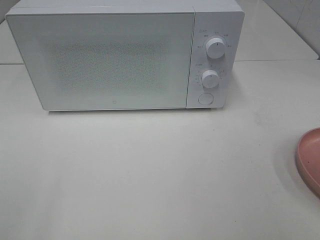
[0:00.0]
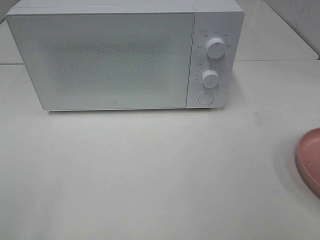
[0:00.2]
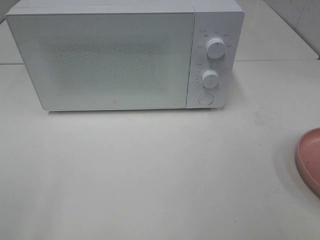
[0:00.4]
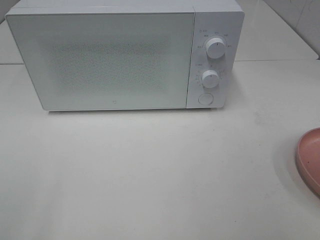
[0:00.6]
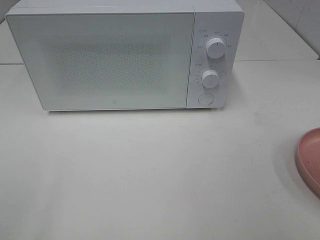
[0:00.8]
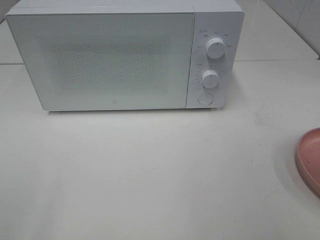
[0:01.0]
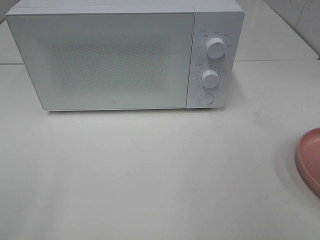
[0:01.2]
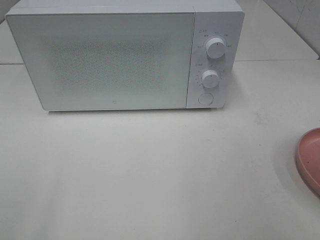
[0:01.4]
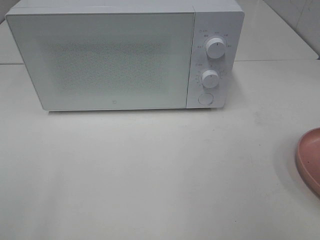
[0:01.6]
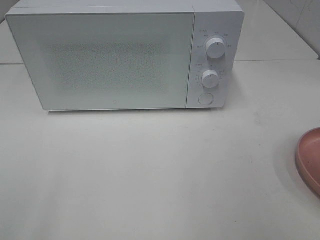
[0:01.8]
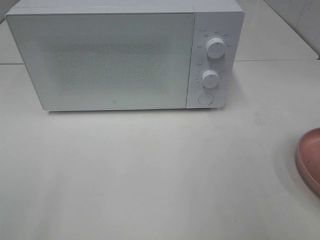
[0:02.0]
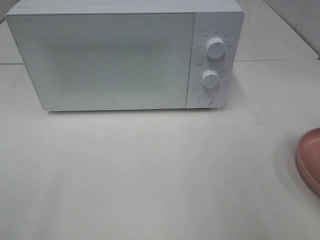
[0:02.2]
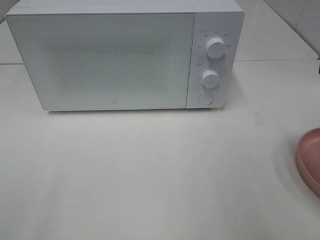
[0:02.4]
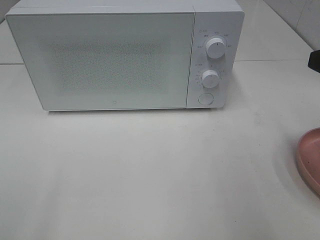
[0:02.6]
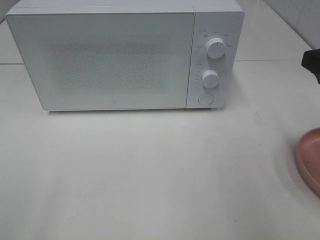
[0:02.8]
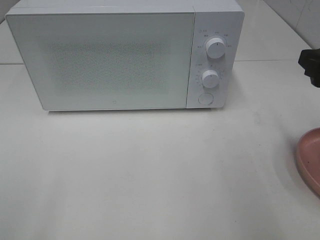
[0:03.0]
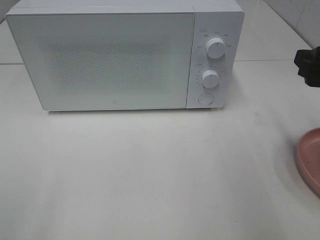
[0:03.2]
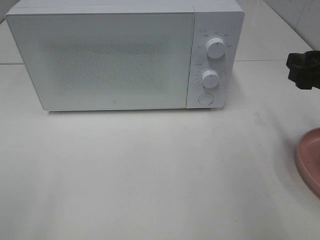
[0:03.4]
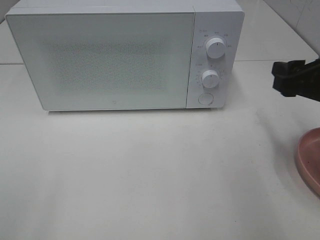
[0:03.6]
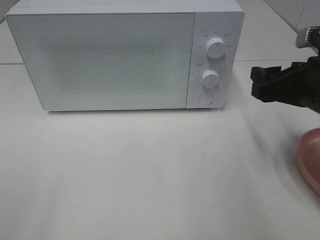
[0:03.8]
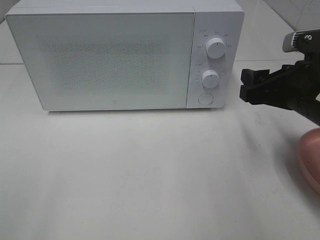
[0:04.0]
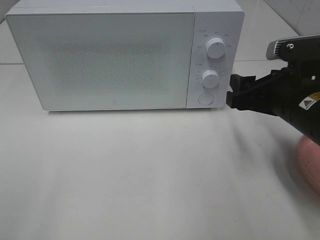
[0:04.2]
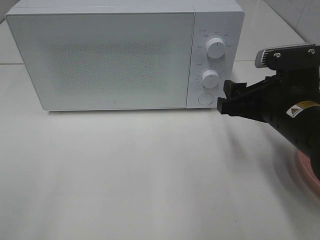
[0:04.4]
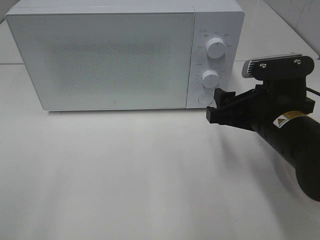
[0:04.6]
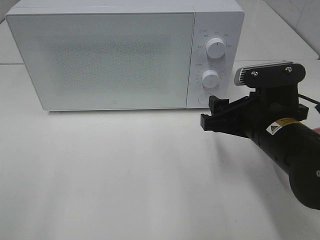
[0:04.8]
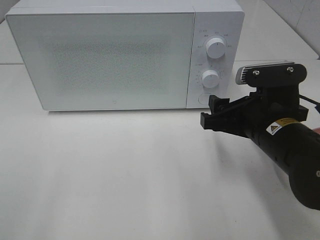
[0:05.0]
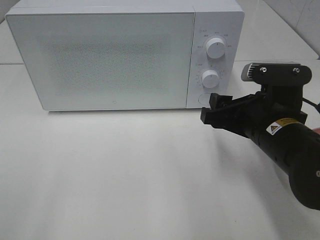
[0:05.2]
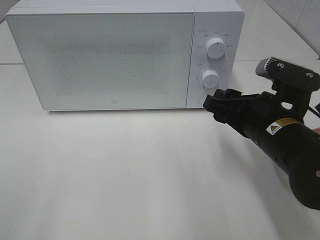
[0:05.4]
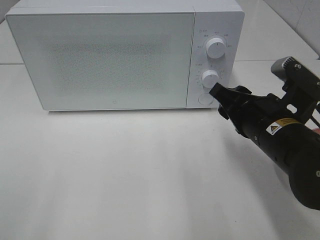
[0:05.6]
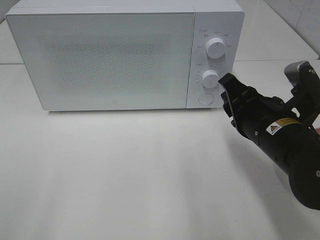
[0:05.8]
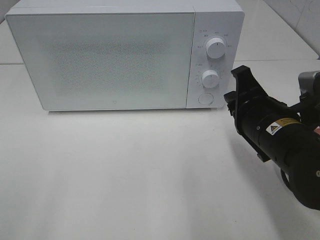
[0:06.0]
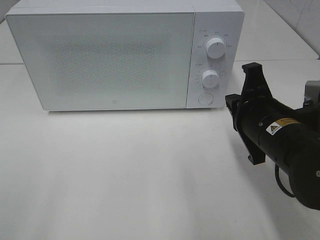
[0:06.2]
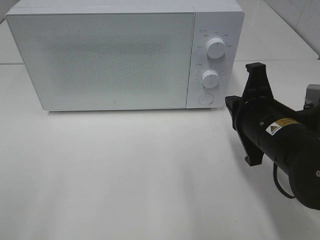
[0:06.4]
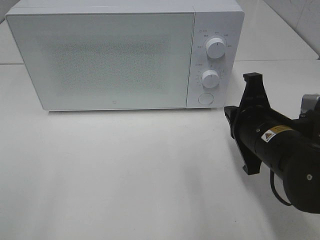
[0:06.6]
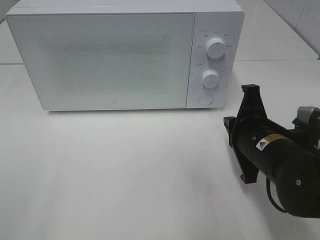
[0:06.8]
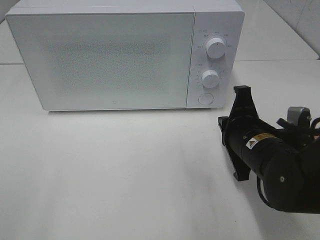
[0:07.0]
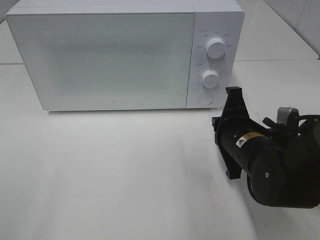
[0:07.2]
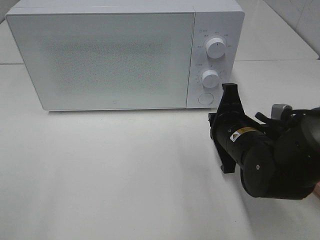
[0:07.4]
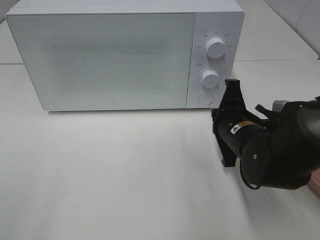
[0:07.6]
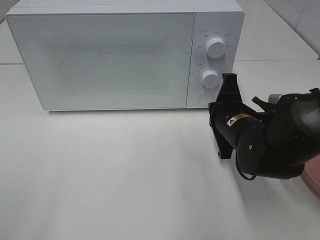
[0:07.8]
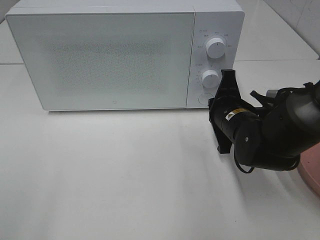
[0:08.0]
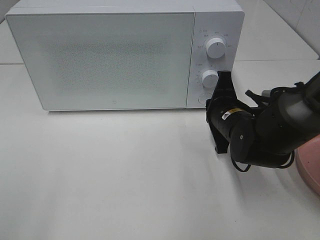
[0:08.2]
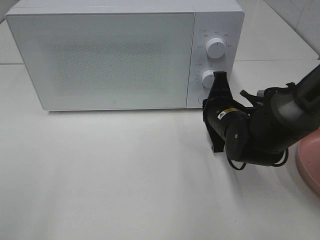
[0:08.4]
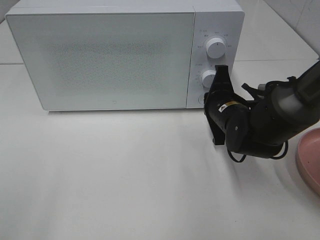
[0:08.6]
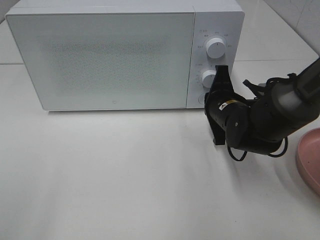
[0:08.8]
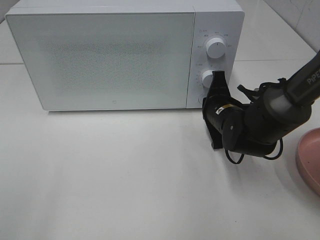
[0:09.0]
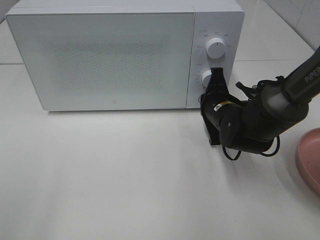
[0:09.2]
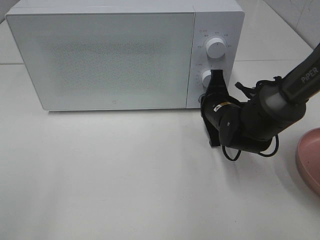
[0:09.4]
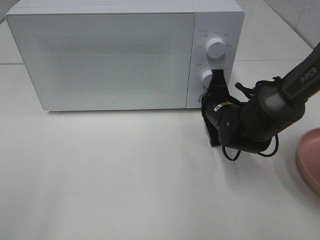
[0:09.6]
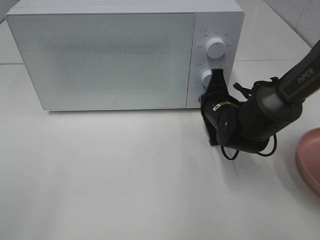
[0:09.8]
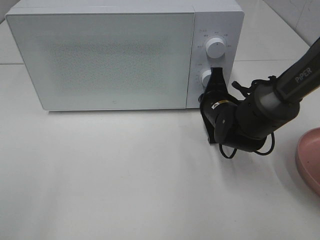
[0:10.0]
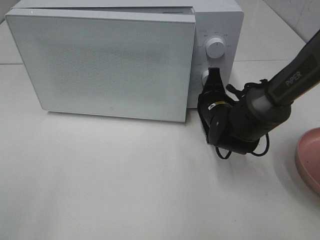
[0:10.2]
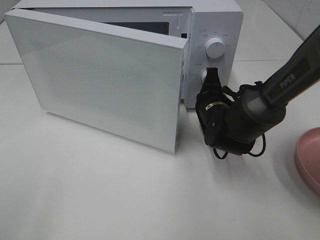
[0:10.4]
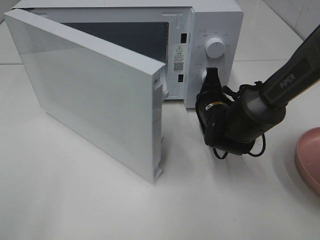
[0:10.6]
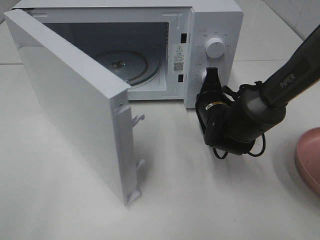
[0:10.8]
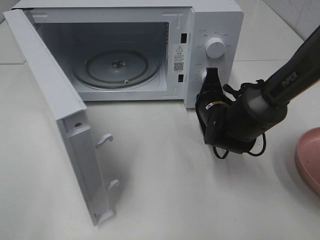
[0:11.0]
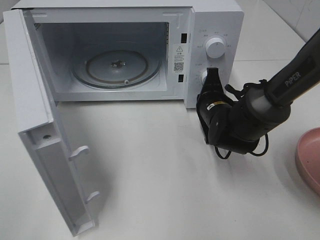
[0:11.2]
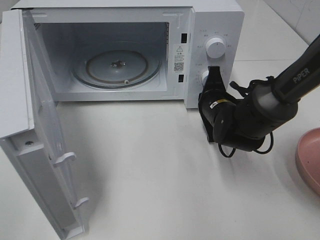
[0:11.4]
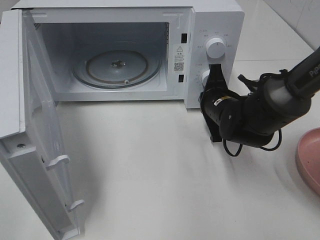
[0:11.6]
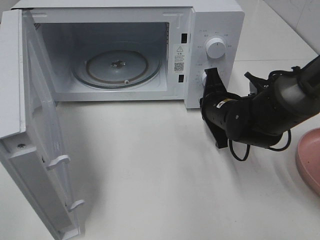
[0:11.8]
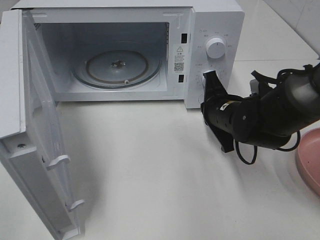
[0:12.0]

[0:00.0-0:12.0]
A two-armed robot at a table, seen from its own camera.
Task of the whole recording: Heat the burger.
Step, 0:00.0 to 0:11.8: Right hand: press the switch.
0:01.6 to 0:03.0: The right gripper travels forward and downward by about 15 cm.
0:03.0 to 0:04.4: The right gripper moves to the left and downward, about 10 cm.
0:04.4 to 0:06.0: The right gripper closes its fingers.
0:06.0 to 0:07.6: The right gripper moves downward and forward, approximately 10 cm.
0:07.6 to 0:09.0: The right gripper shifts about 5 cm forward.
0:09.0 to 0:10.4: The grippers move only a little.

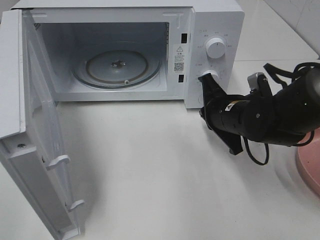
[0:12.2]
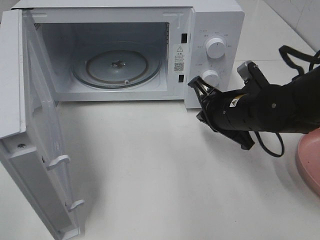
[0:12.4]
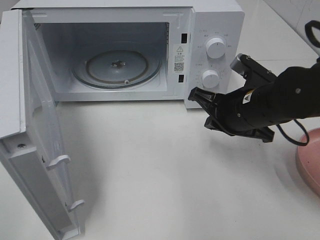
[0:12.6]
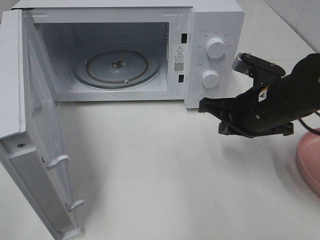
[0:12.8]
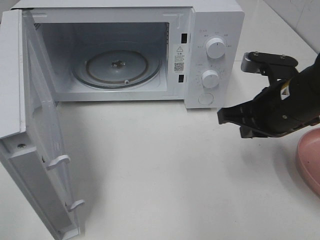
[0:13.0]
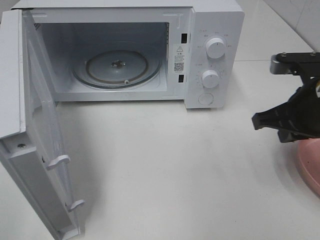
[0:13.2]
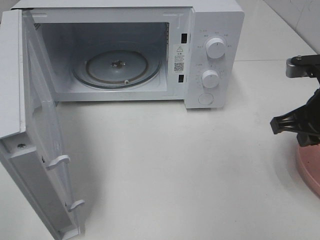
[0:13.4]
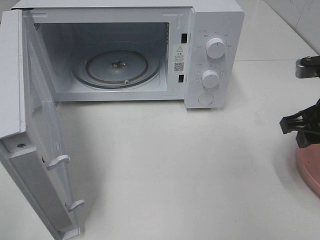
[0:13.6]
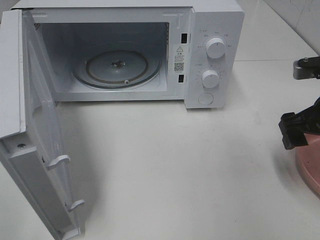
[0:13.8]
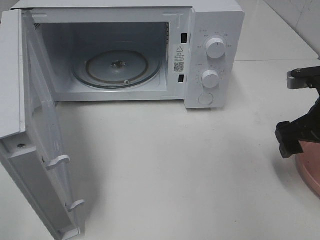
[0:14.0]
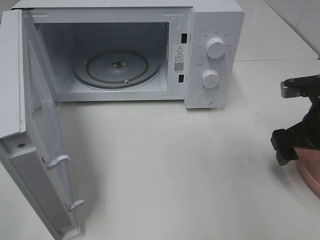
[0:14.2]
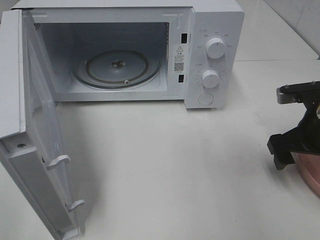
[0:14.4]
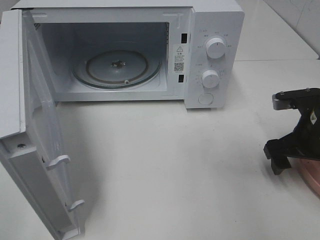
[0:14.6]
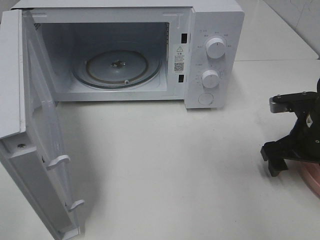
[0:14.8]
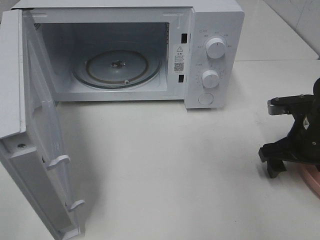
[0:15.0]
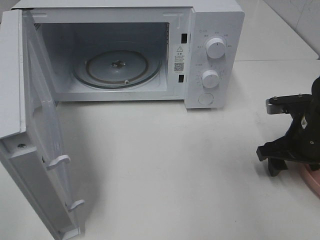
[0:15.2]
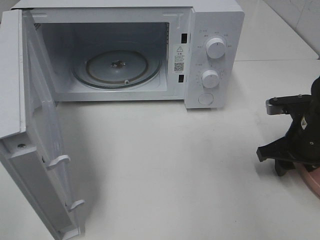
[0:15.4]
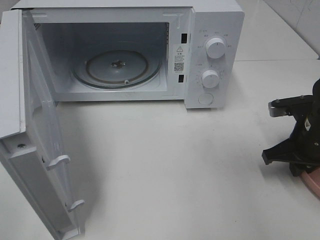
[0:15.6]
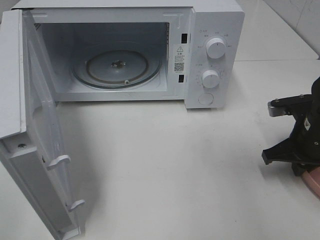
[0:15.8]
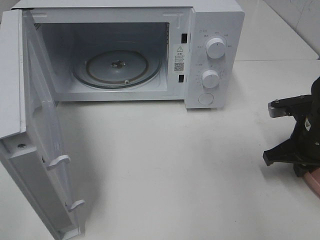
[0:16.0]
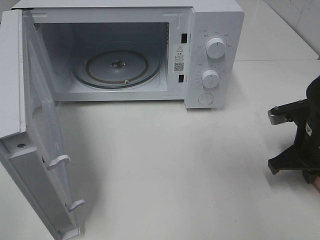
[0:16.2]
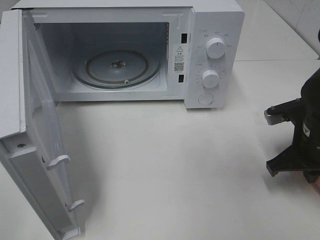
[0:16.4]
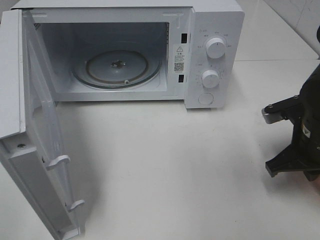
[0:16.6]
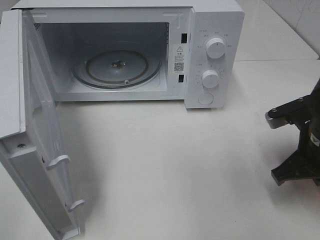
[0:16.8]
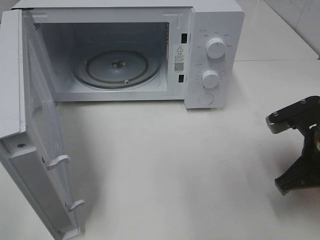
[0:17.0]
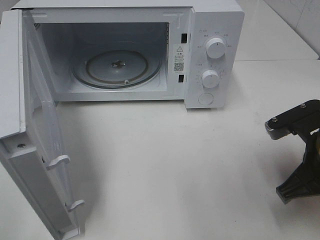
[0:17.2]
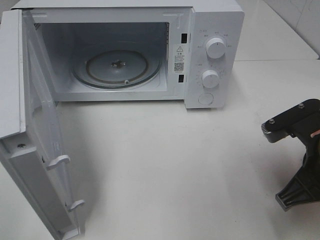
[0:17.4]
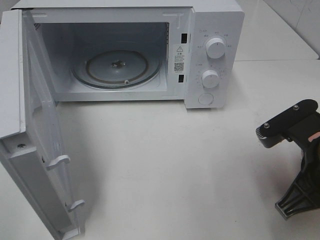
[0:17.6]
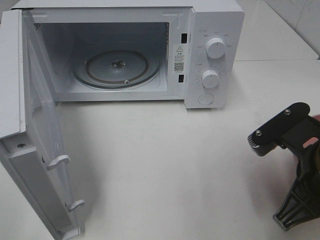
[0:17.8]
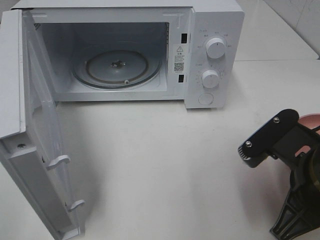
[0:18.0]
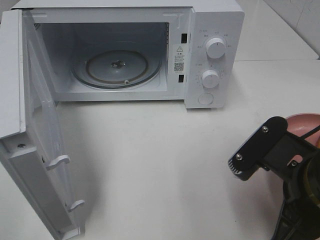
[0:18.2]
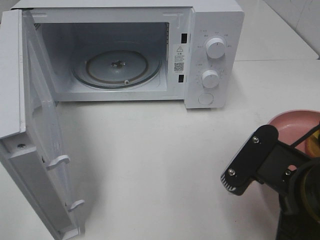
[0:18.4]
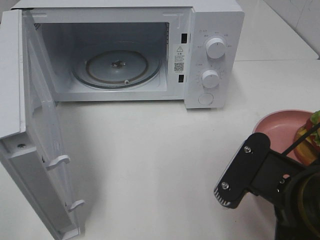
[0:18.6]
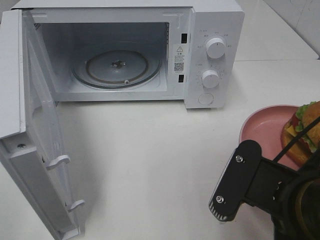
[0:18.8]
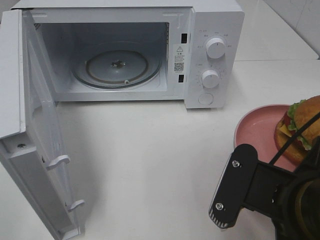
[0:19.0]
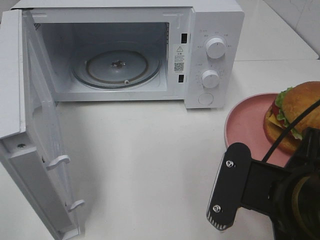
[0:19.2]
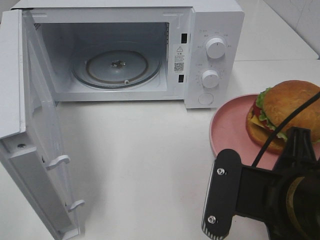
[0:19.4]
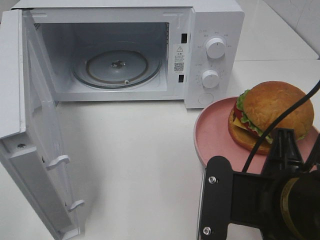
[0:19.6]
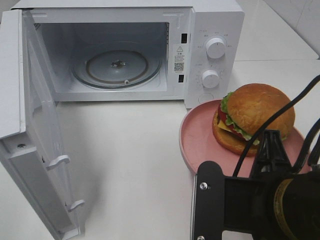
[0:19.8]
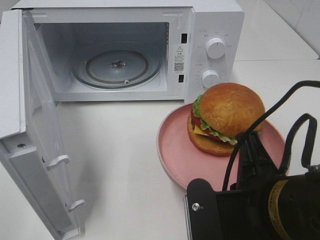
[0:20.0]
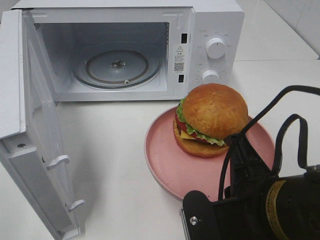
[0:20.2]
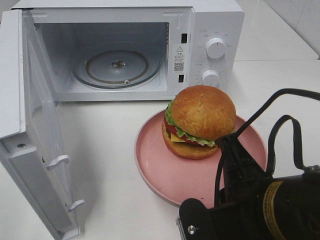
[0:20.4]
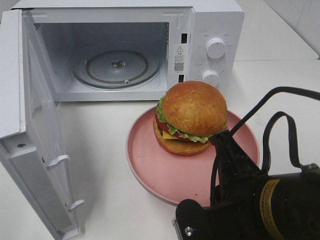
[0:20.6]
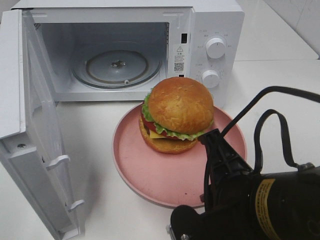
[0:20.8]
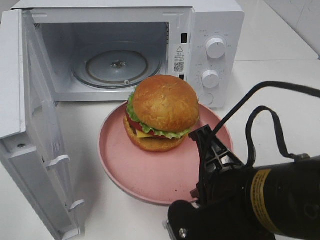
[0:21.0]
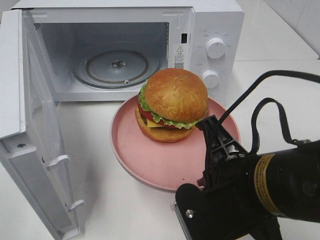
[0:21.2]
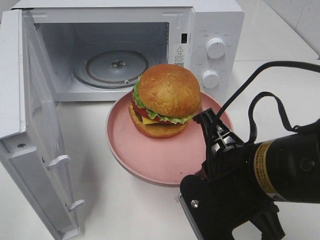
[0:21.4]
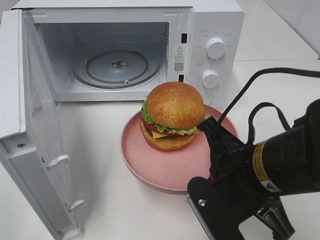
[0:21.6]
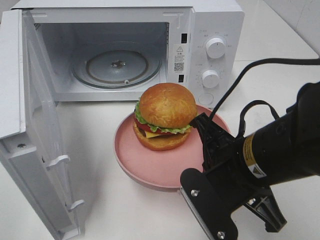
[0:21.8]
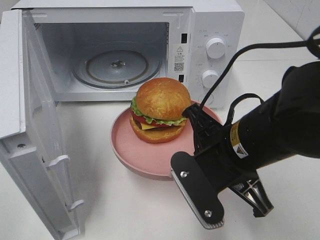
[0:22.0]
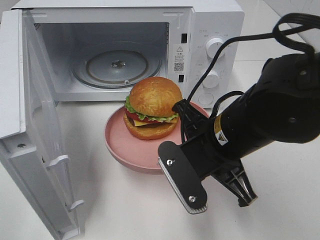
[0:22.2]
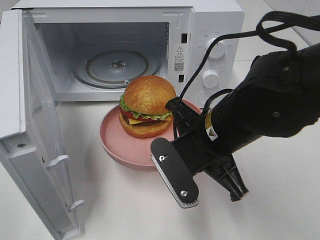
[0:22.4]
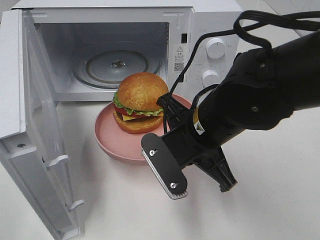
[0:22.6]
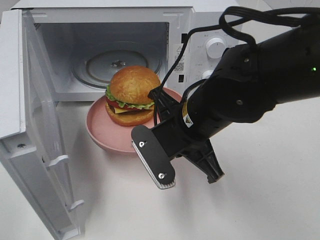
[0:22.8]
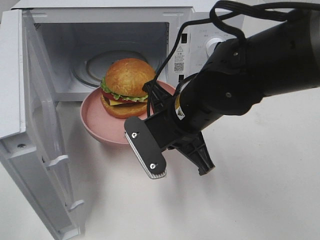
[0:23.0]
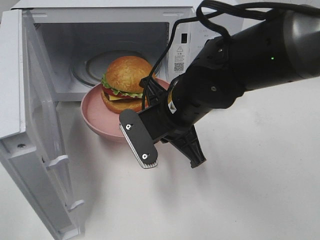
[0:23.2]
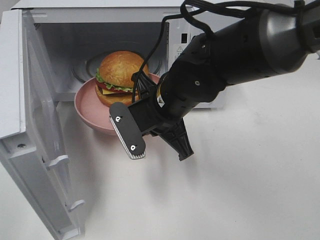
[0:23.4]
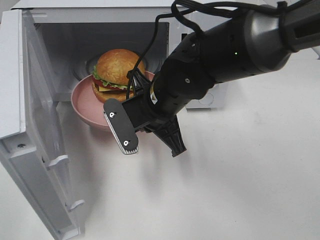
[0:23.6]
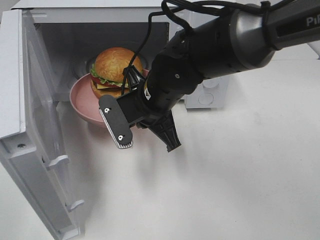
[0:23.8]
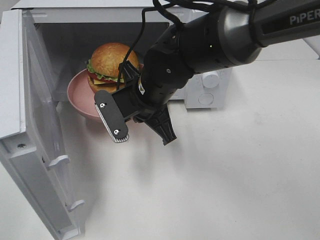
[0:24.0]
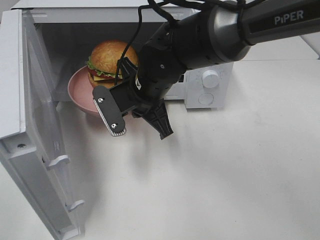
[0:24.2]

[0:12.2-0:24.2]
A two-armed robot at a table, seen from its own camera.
Task of the whole recording: Heat the burger.
Step, 0:12.2 to 0:15.8: Right hand: grab the plate with the hamburger.
0:12.2 to 0:13.8: The right gripper shifts approximately 15 cm to the right, upward and backward, and opens its fingers.
0:13.8 to 0:15.2: The right gripper goes some 10 cm downward.
0:15.2 to 0:16.6: The right gripper closes.
0:16.6 to 0:18.2: The right gripper moves backward, to the left and upward, roughly 15 cm.
0:18.2 to 0:19.8: The right gripper changes place by about 5 cm.
0:21.2 to 0:22.6: The right gripper goes about 10 cm forward.
0:22.6 to 0:24.2: The right gripper is displaced forward and to the left by roughly 10 cm.
